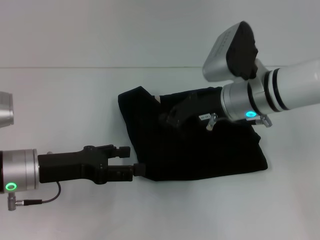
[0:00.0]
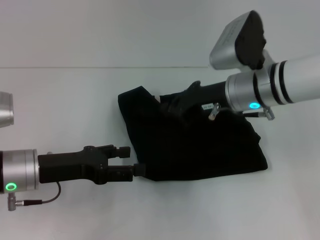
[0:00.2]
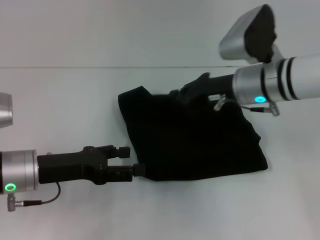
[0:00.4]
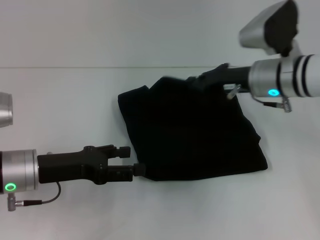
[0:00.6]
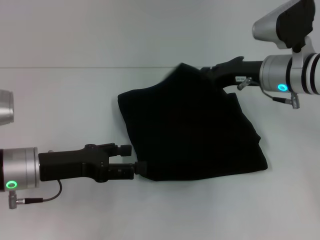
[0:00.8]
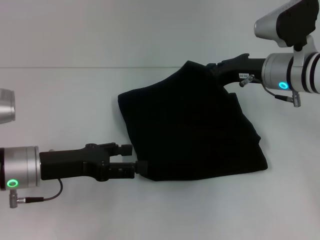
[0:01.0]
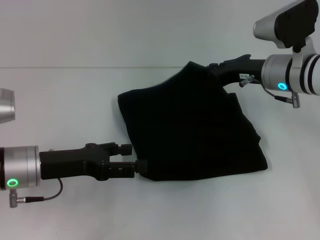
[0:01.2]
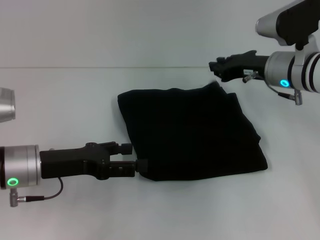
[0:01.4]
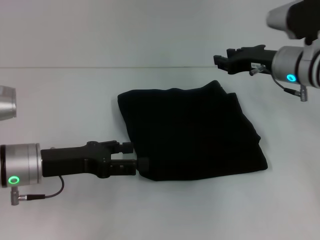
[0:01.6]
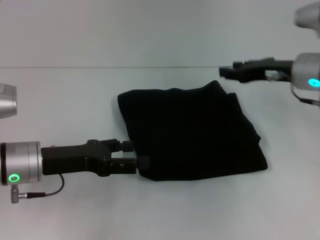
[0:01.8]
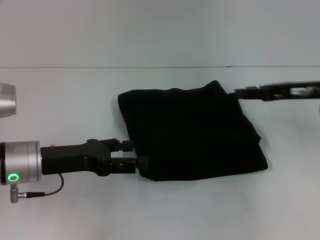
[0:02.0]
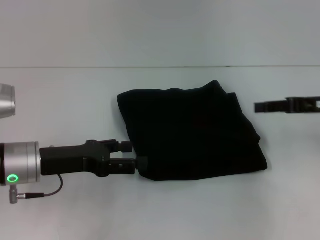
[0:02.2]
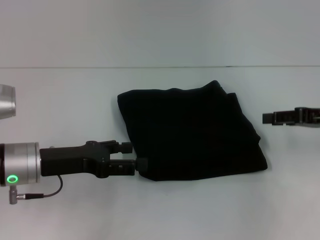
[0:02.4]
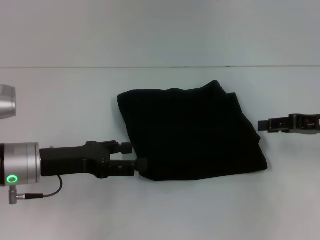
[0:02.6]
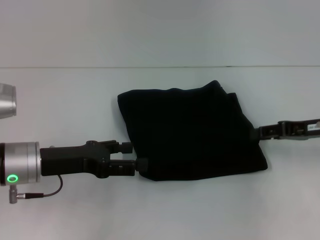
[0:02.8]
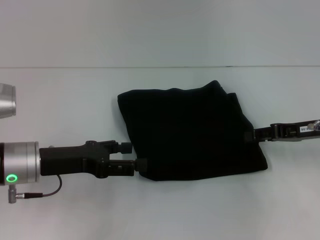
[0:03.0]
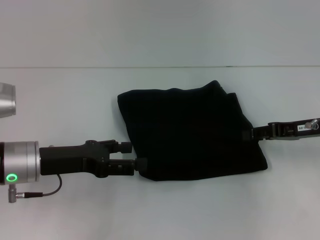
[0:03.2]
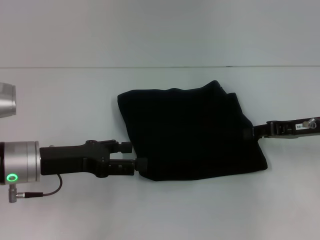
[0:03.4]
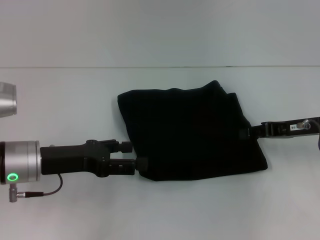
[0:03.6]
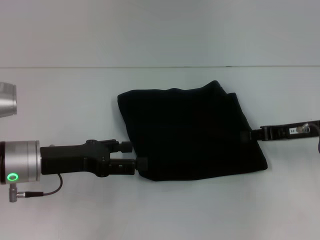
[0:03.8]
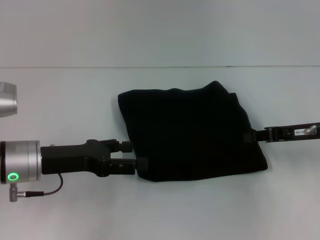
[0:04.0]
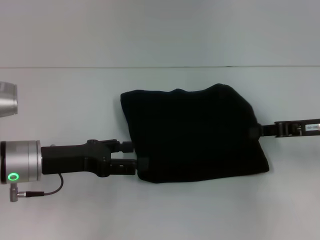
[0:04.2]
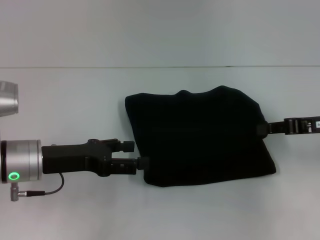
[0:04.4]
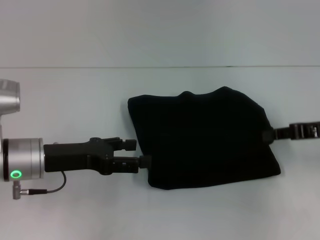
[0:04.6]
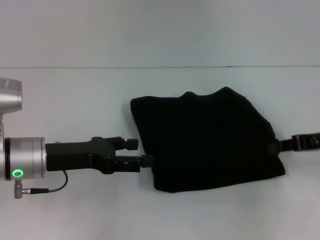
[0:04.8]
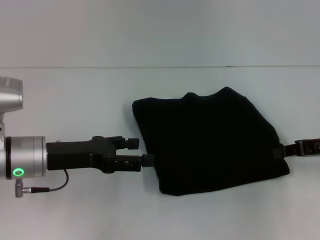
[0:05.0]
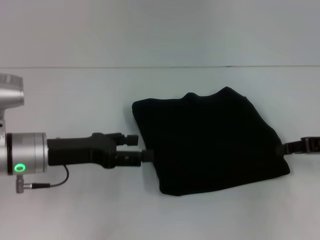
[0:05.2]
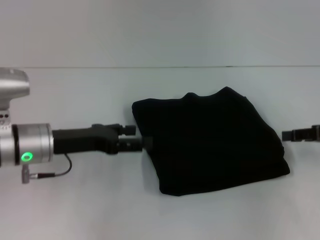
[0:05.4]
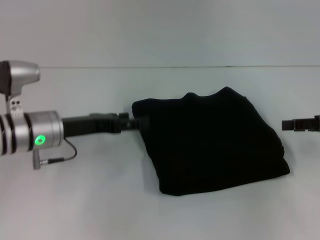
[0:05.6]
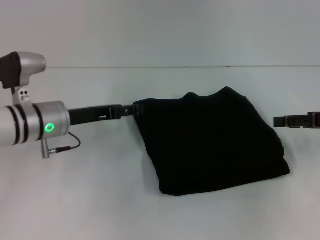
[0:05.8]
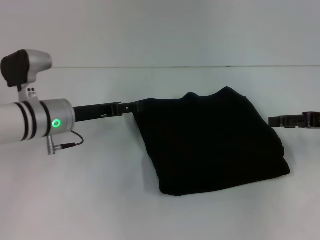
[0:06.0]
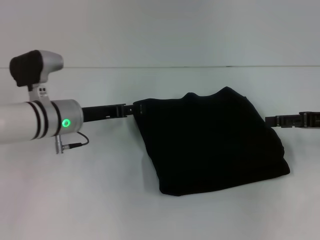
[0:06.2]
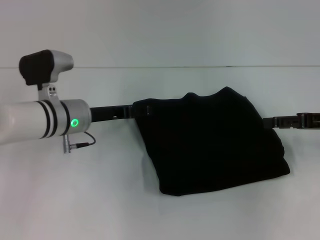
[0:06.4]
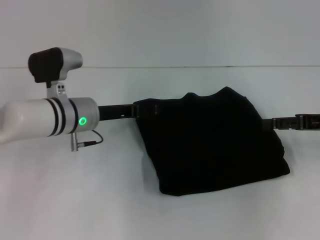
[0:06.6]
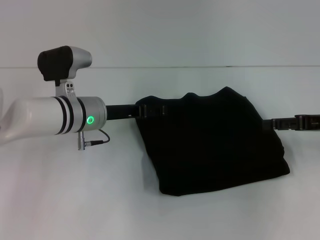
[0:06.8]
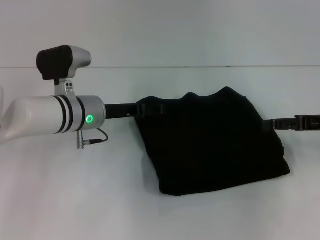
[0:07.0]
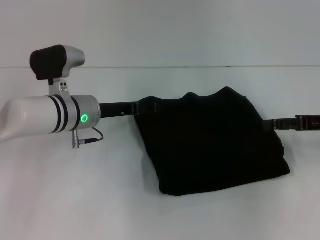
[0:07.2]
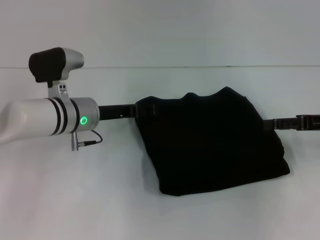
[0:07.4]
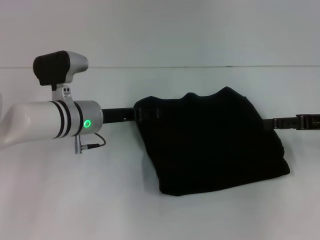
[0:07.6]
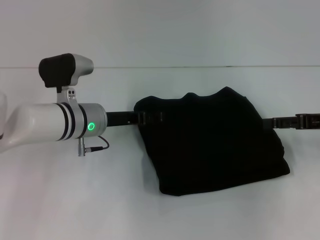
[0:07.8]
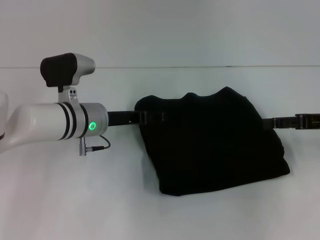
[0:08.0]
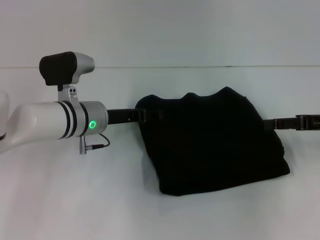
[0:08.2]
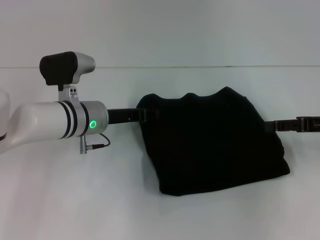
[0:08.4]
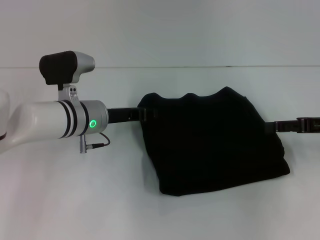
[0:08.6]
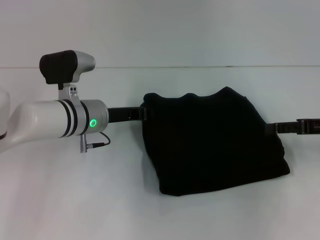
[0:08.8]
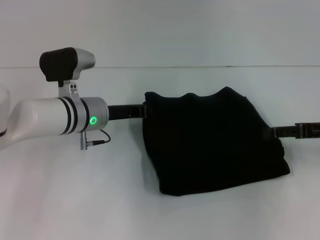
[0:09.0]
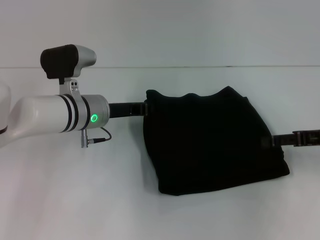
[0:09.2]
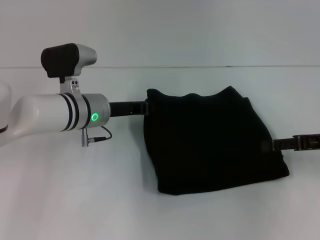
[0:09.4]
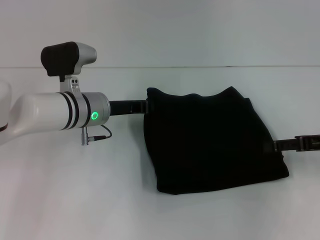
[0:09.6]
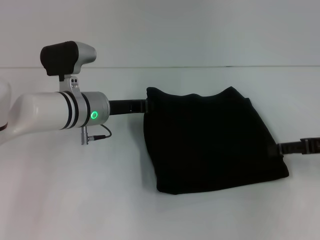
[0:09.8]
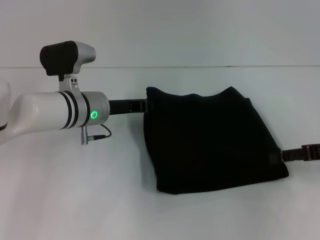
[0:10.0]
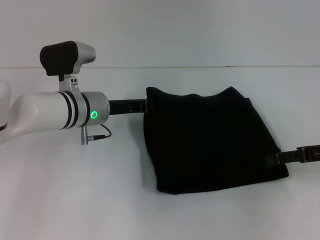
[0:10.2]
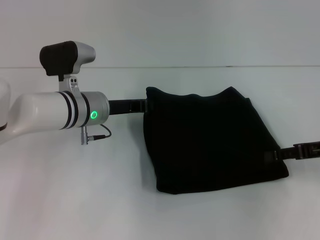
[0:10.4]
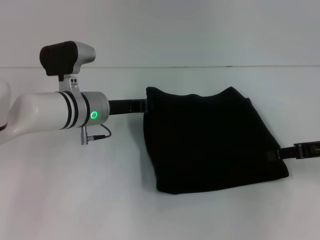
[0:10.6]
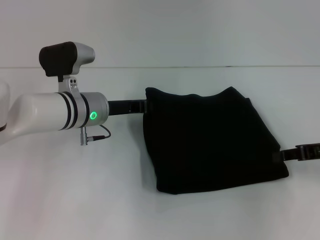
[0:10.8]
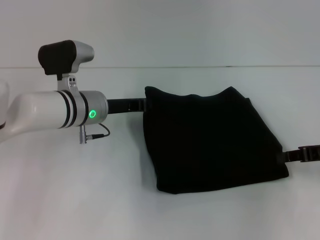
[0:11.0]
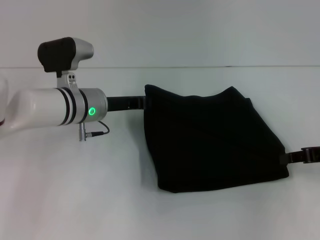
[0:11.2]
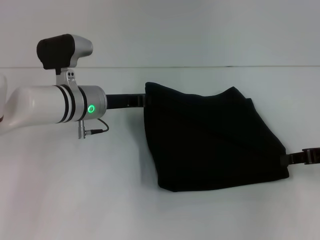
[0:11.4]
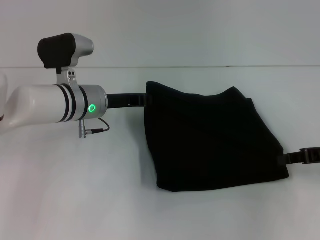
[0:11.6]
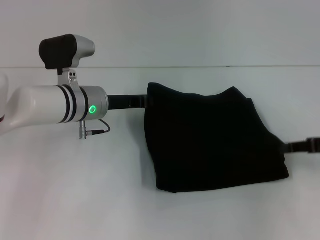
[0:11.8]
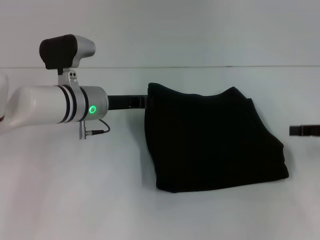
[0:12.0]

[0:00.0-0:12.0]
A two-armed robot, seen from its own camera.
0.0 to 1.6 s: The right gripper goes approximately 10 cm to the right.
1.6 to 3.0 s: The right gripper travels to the right and backward by approximately 10 cm, and opens its fingers.
3.0 to 4.4 s: The right gripper closes its fingers.
4.4 to 6.0 s: The right gripper opens, while the left gripper moves forward, some 10 cm.
6.0 to 7.6 s: The grippers stay close to where they were, moving slightly.
7.6 to 9.0 s: The left gripper closes its fingers.
9.0 to 10.4 s: The grippers make only small movements.
10.4 to 12.0 s: The right gripper closes.

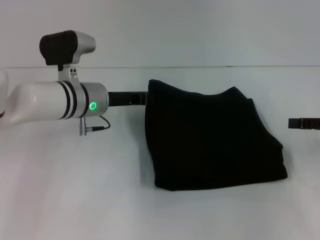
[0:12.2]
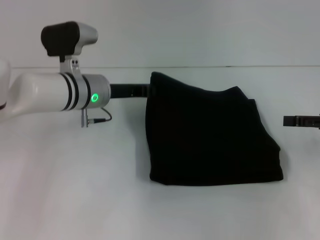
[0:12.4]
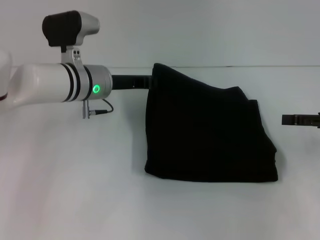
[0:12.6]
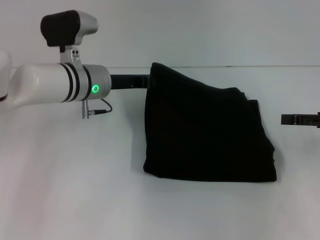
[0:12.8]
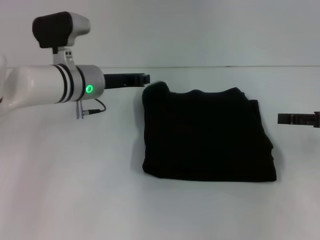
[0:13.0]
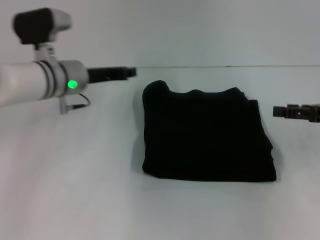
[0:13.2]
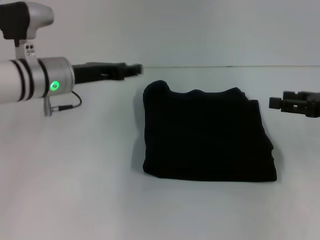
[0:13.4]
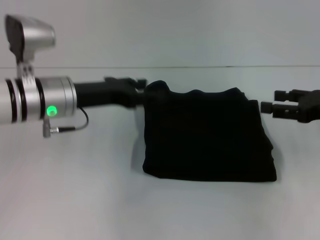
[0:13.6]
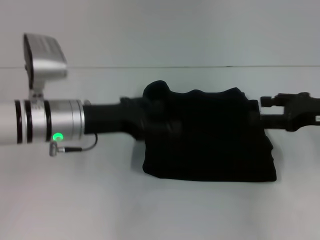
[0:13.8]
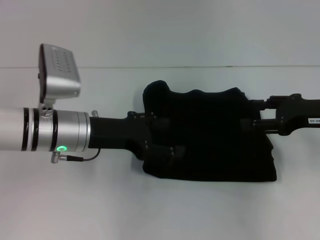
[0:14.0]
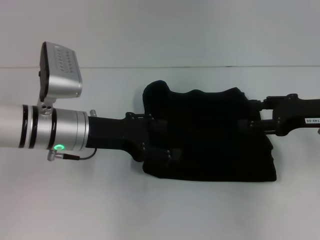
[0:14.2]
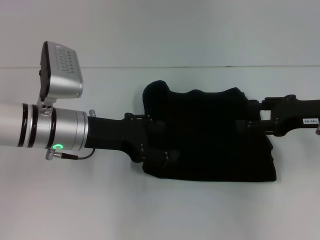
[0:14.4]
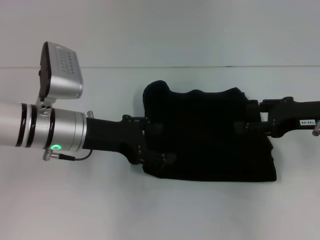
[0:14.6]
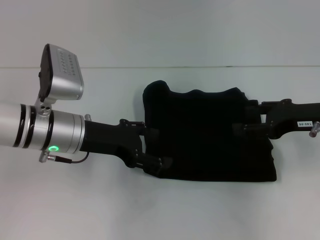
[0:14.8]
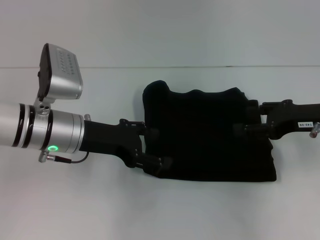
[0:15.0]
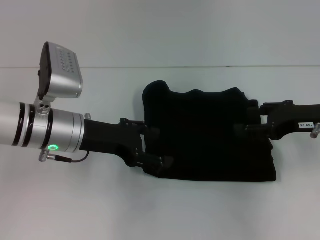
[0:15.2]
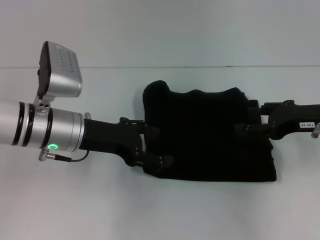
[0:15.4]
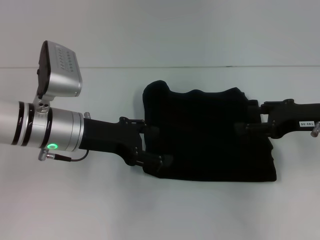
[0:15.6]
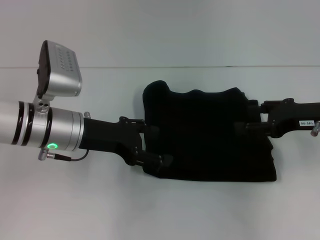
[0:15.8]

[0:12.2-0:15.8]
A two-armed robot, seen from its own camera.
12.2 to 14.0 s: The left gripper heads backward, covering some 5 cm, and opens, while the right gripper travels to the left by some 5 cm, and opens.
14.0 to 15.8 s: The grippers move only a little.

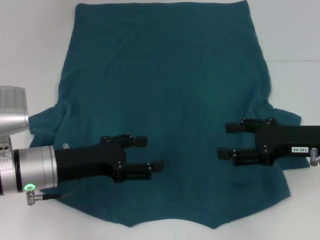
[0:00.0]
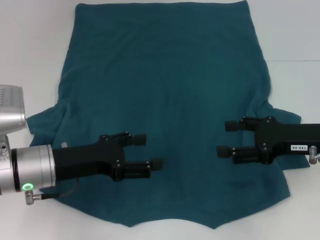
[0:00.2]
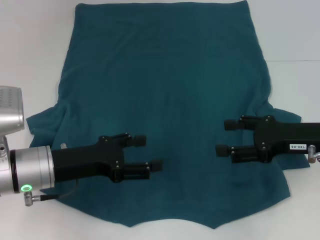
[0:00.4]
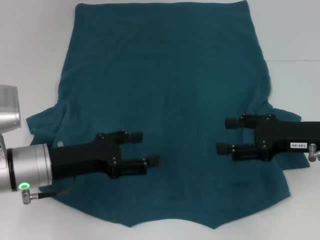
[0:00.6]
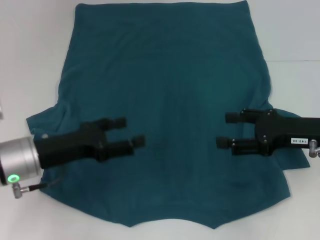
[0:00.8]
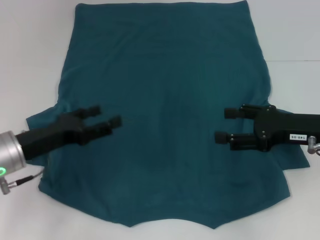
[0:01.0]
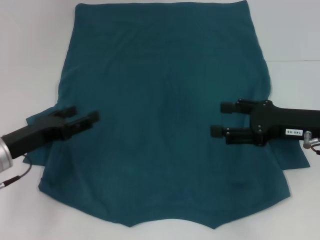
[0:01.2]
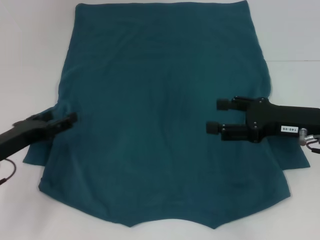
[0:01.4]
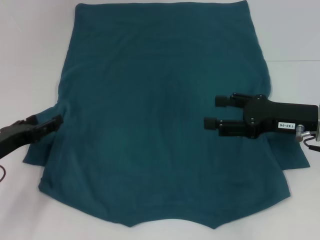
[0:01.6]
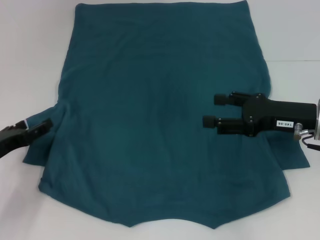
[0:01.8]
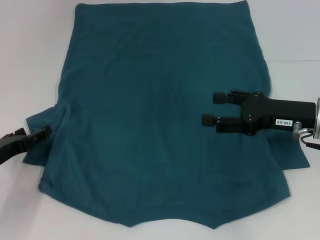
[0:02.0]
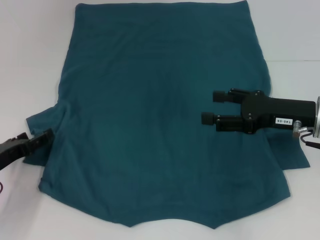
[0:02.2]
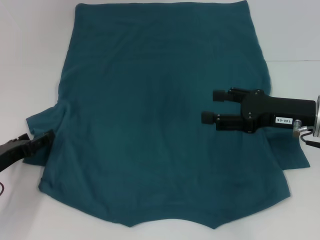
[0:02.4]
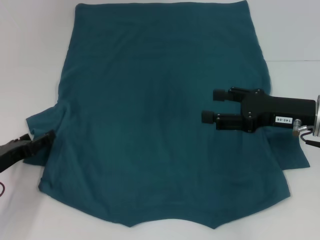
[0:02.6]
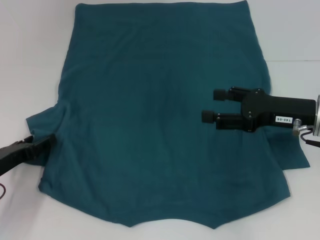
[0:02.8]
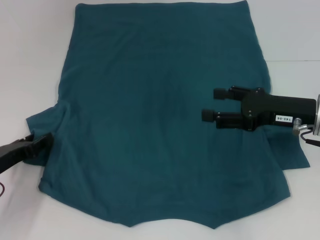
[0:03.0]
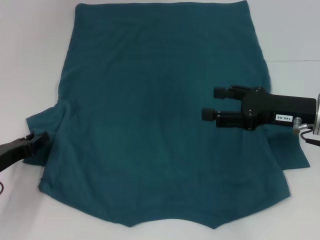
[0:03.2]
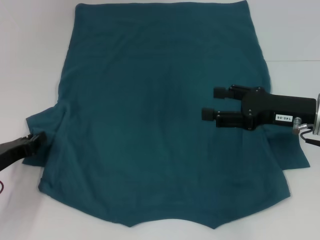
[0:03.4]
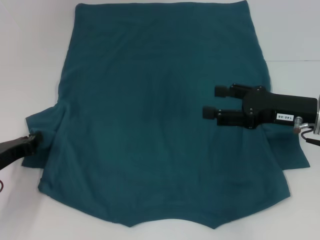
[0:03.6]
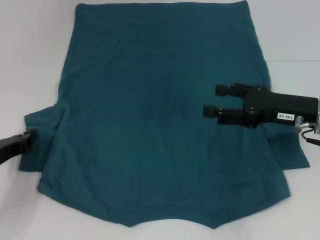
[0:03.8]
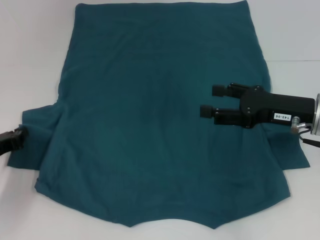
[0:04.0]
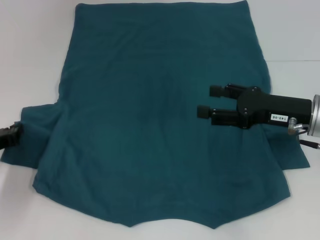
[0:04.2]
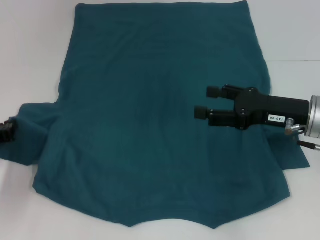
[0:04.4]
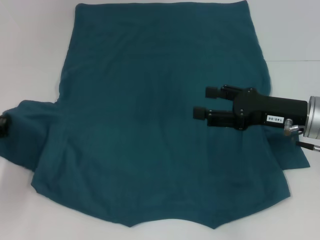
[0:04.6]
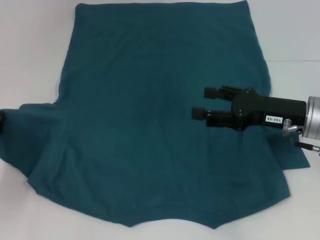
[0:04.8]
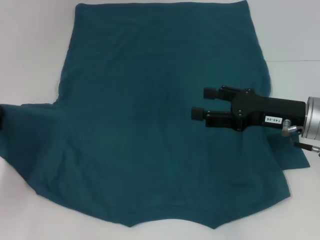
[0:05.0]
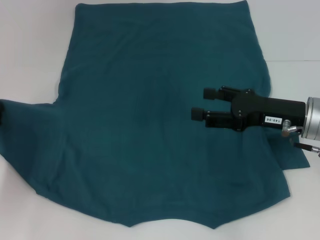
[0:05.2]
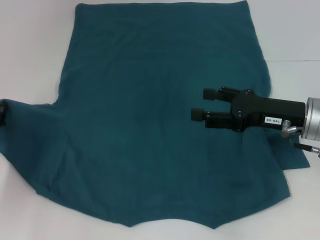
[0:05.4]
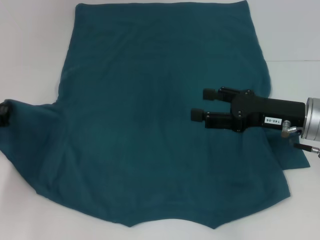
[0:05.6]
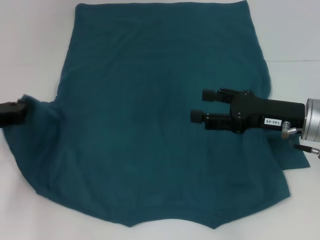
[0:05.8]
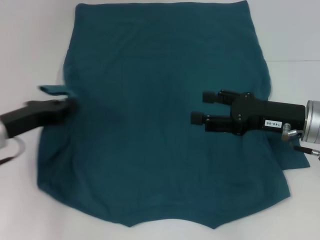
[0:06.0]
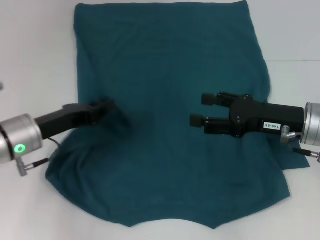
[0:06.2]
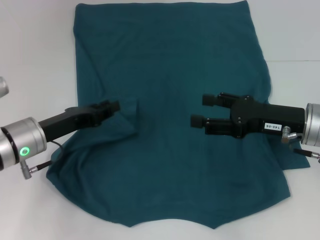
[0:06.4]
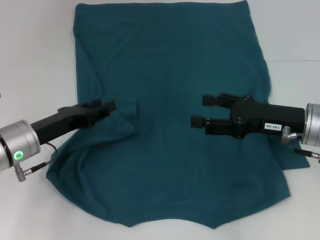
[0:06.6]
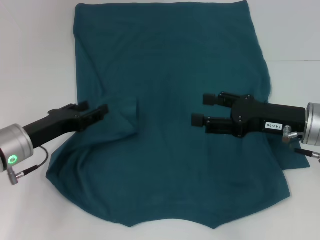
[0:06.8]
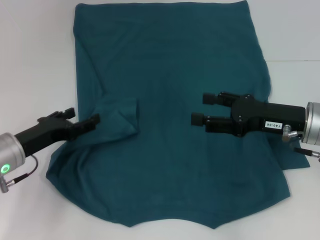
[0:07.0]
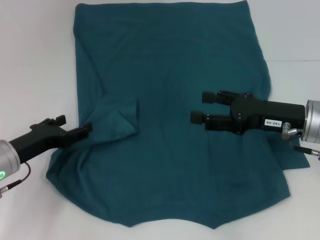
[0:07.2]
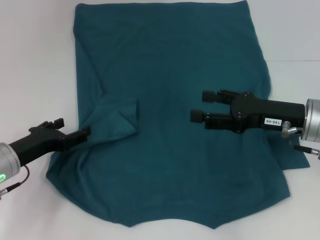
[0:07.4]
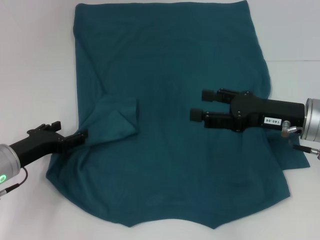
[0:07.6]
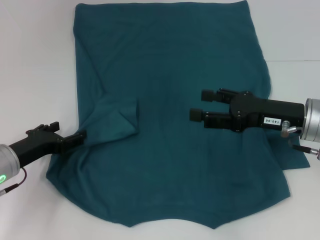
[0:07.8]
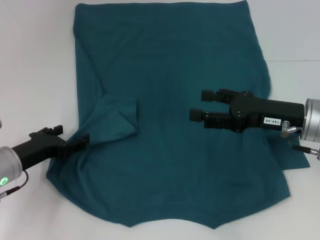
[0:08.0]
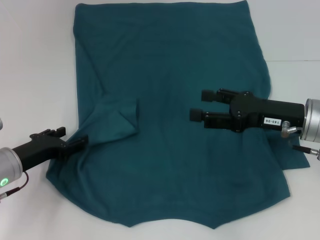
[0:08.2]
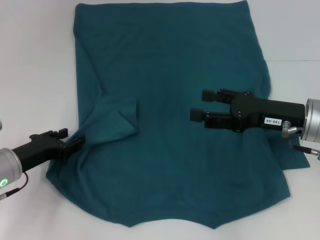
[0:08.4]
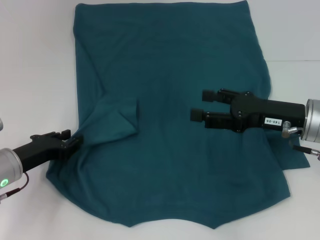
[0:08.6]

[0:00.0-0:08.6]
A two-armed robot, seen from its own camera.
0.0 to 1.4 s: The left gripper goes some 10 cm to the left.
1.4 to 2.8 s: The grippers make only small movements.
2.8 to 4.4 s: The left gripper closes.
4.4 to 5.8 s: The grippers stay close to where they were, moving slightly.
5.8 to 7.2 s: The left gripper heads to the right, covering approximately 5 cm, and opens its fingers.
7.2 to 8.6 s: The grippers stay close to where they were, moving slightly.
